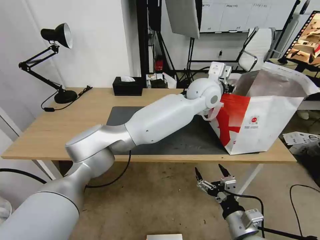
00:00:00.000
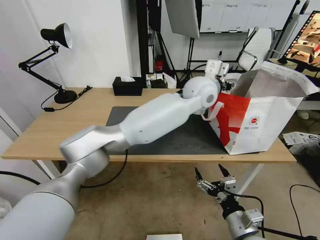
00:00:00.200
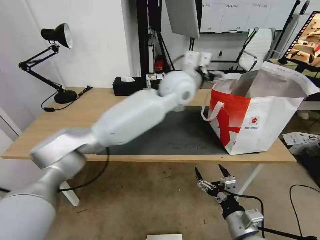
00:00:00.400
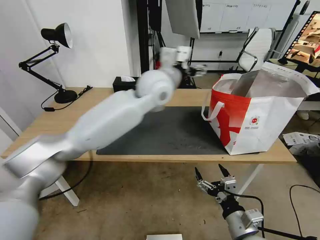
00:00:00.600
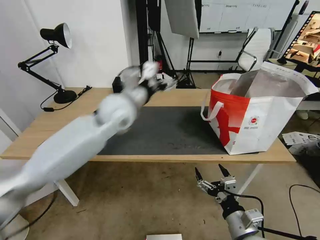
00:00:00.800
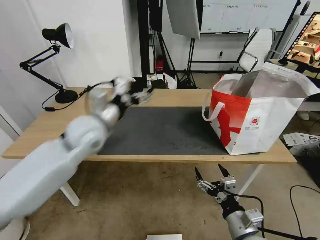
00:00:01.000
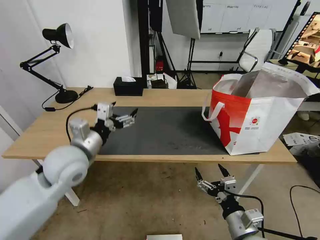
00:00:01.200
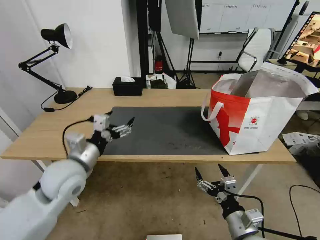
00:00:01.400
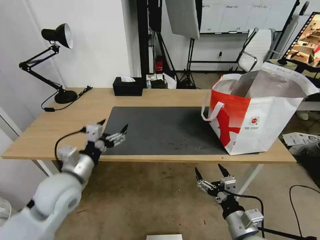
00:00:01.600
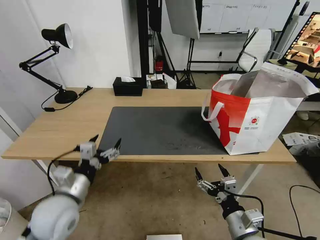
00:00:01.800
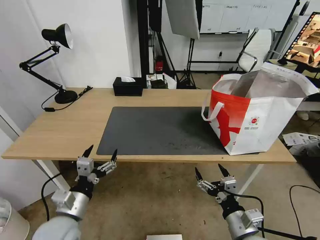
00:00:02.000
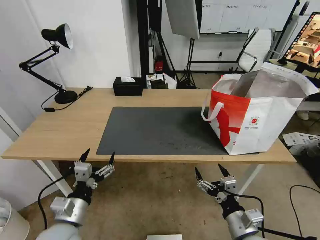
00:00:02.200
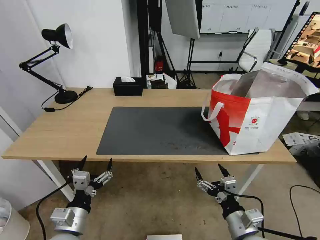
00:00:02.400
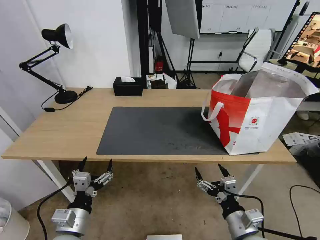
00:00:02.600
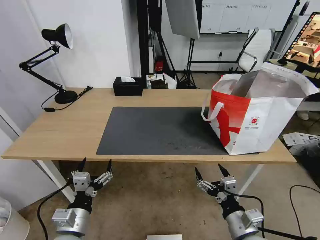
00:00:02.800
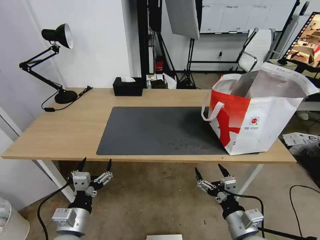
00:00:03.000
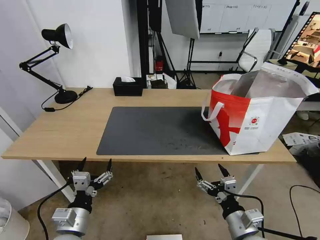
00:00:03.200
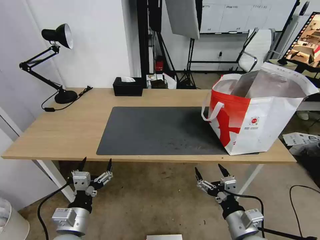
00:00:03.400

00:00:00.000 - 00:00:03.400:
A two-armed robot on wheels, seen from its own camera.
Task of the whole recording: Pick up the trash from the table and place it into the takeout bag.
00:00:00.000 - 00:00:01.600: The left gripper goes roughly 50 cm to the left and backward, and opens its fingers.
00:00:01.600 - 00:00:03.400: The left gripper heads backward and downward, covering approximately 15 cm.

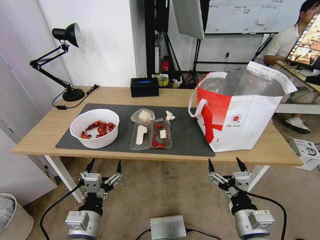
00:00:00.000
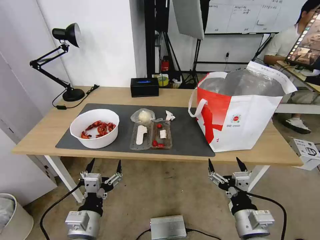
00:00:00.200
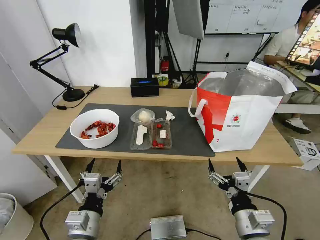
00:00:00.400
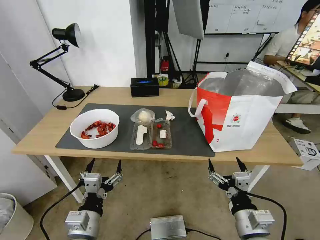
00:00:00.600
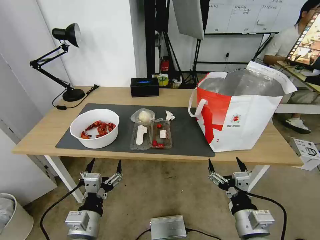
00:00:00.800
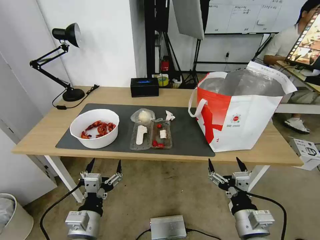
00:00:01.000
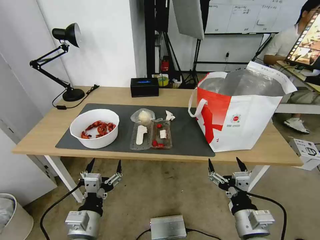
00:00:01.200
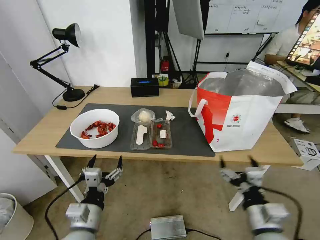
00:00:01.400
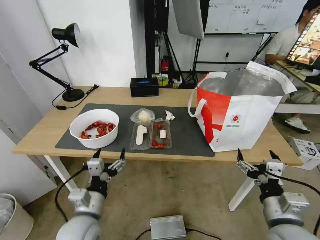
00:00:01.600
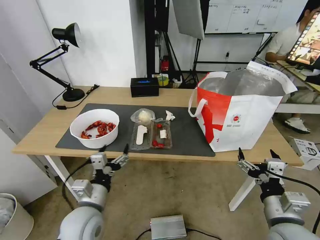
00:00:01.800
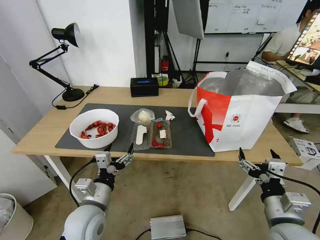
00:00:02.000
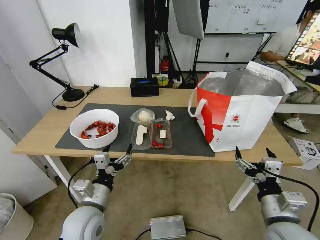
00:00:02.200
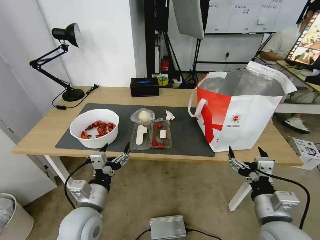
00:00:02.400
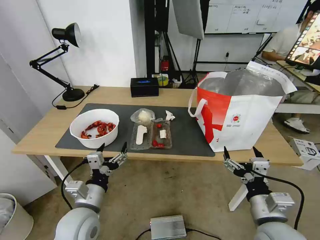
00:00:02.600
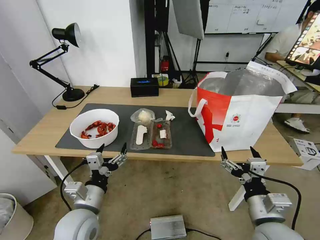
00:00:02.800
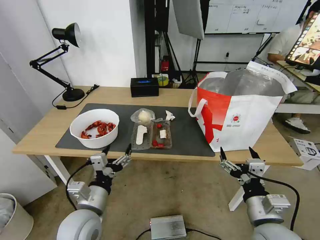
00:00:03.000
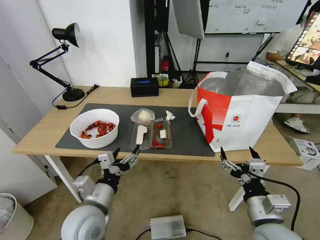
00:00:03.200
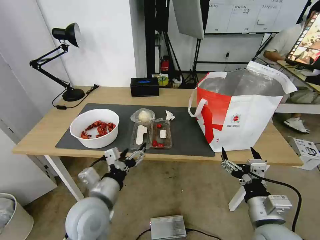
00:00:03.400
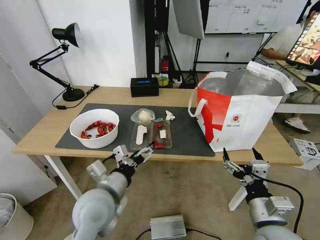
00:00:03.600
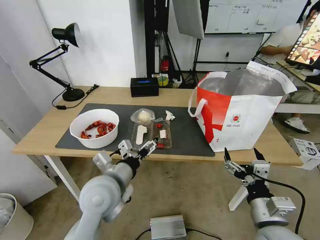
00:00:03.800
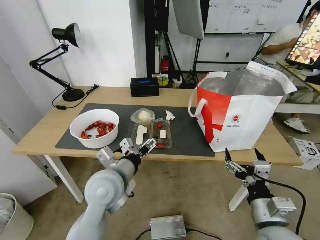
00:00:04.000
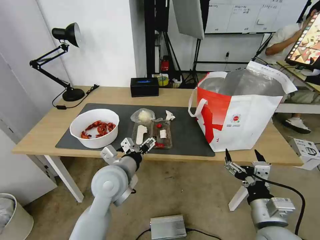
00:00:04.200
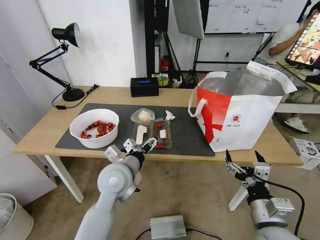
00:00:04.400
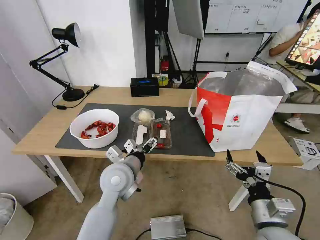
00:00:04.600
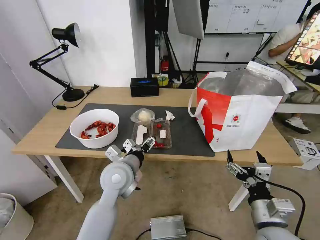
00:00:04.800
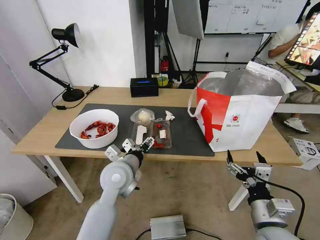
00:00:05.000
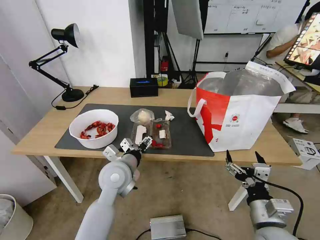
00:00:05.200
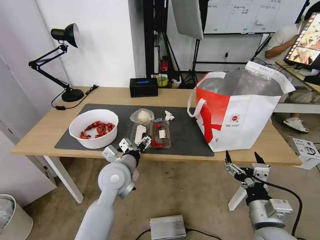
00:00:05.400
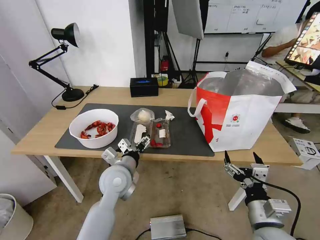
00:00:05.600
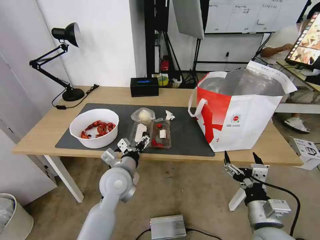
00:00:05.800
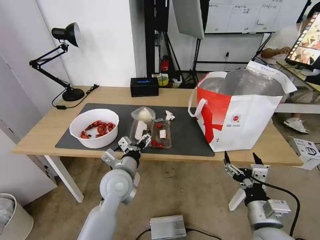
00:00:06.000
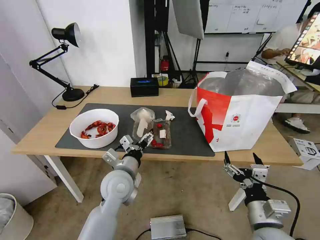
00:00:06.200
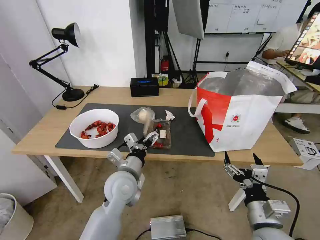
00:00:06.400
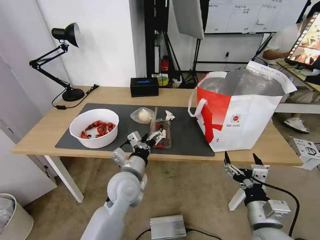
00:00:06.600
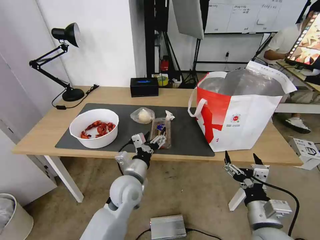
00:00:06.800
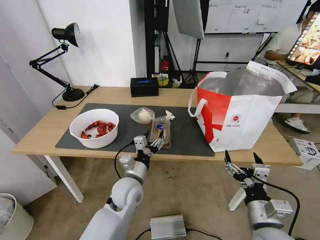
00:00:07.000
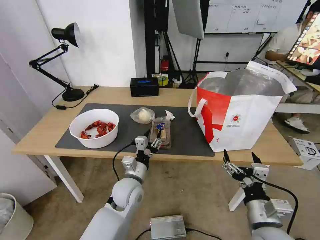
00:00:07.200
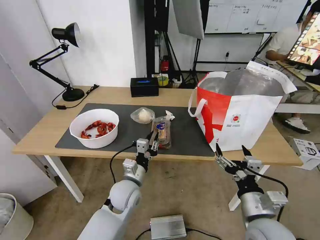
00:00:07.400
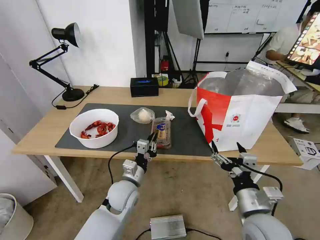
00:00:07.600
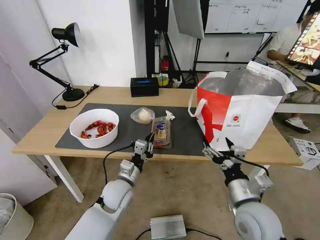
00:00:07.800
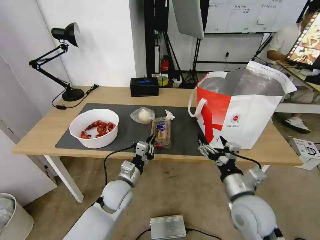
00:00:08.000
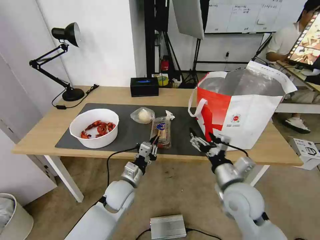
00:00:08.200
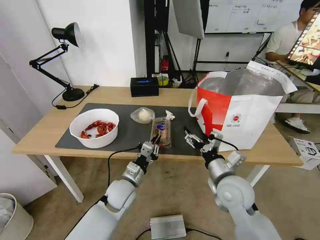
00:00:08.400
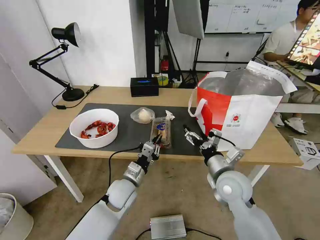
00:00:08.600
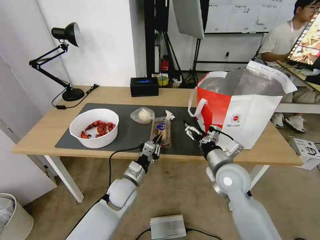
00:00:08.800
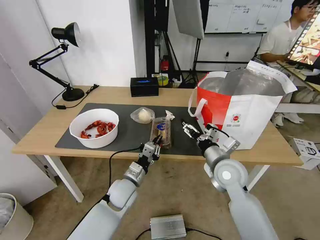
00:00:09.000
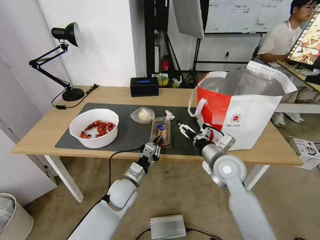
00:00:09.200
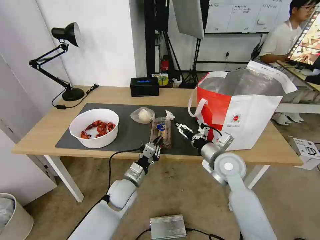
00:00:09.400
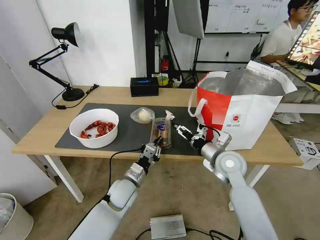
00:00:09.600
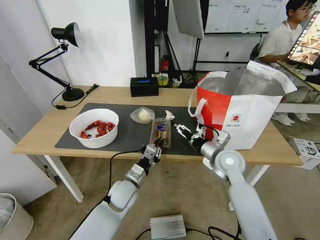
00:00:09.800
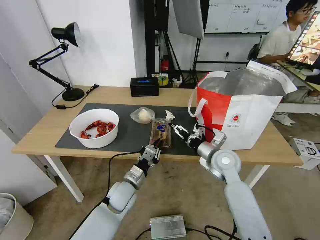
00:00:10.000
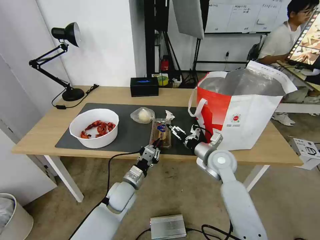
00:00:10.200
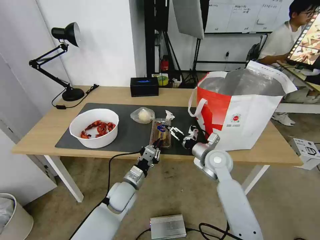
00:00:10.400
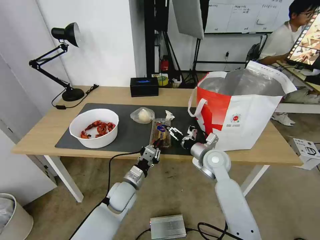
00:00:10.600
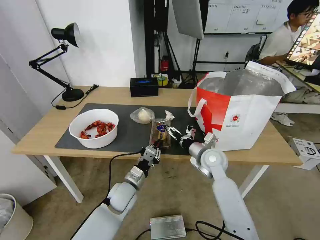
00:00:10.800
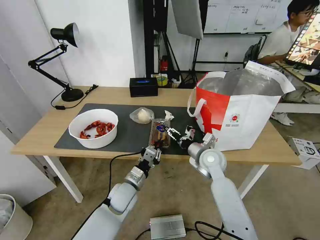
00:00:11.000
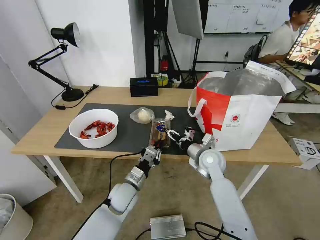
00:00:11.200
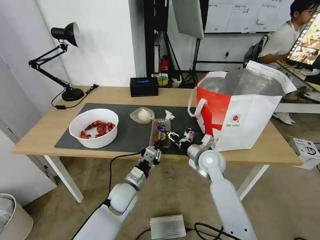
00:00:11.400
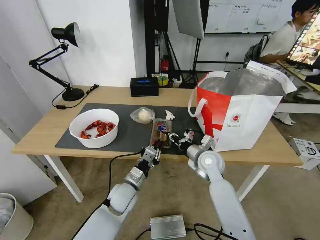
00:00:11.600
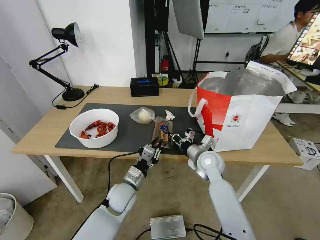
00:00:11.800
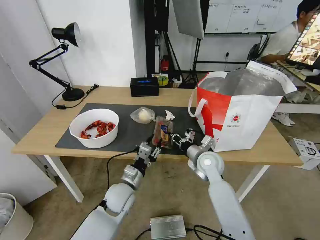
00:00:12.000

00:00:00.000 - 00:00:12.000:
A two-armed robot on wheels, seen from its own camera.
Task of the whole recording: Pick up the trash from the table and place it into the takeout bag.
00:00:01.600 - 00:00:03.000: The grippers make only small movements.
00:00:03.000 - 00:00:04.400: The left gripper shifts approximately 15 cm forward and to the right.
00:00:04.400 - 00:00:06.000: There are only small adjustments of the grippers.
00:00:06.000 - 00:00:07.600: The left gripper travels downward by about 5 cm, and closes its fingers.
00:00:07.600 - 00:00:09.000: The right gripper goes about 15 cm forward.
00:00:09.000 - 00:00:10.400: The right gripper is displaced forward by some 5 cm.
00:00:10.400 - 00:00:12.000: The right gripper closes up; the left gripper opens up.

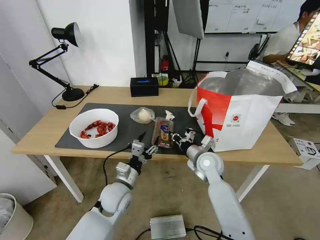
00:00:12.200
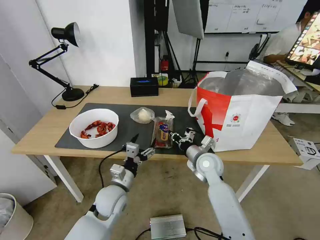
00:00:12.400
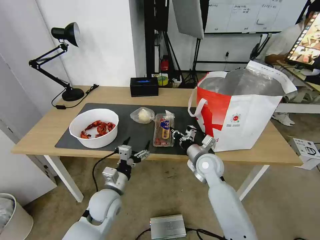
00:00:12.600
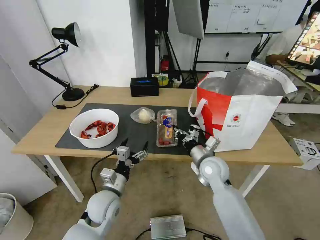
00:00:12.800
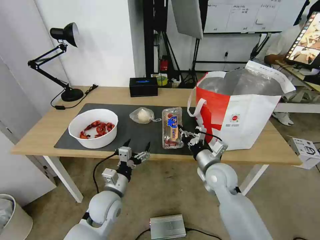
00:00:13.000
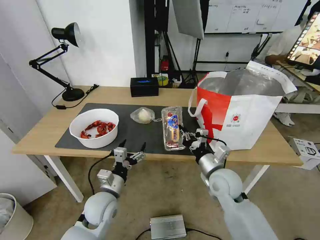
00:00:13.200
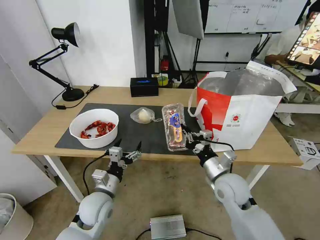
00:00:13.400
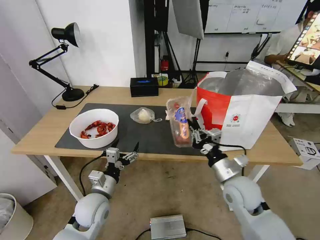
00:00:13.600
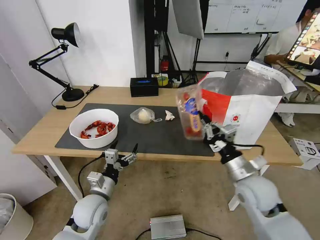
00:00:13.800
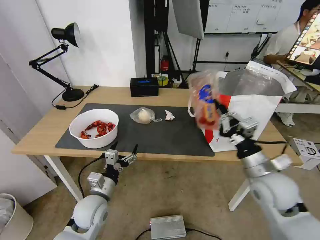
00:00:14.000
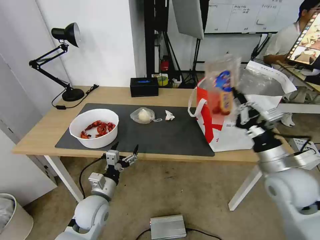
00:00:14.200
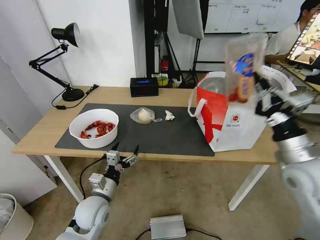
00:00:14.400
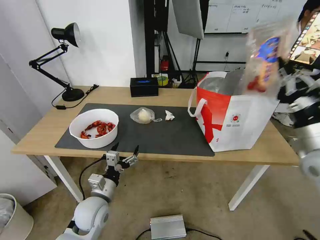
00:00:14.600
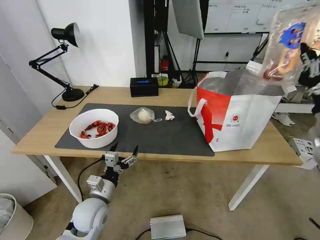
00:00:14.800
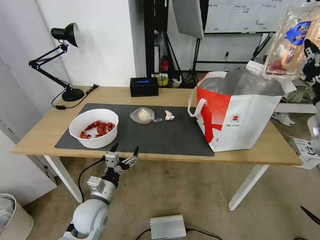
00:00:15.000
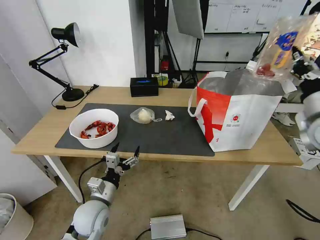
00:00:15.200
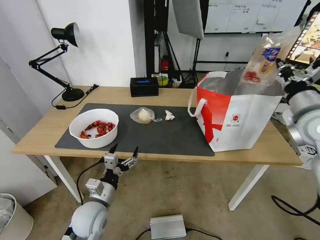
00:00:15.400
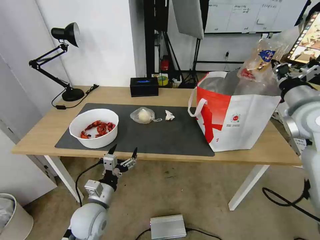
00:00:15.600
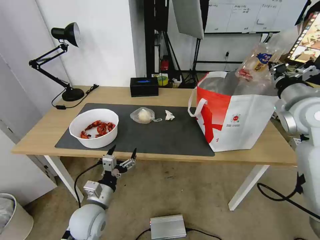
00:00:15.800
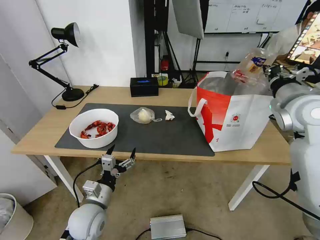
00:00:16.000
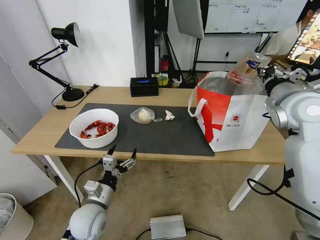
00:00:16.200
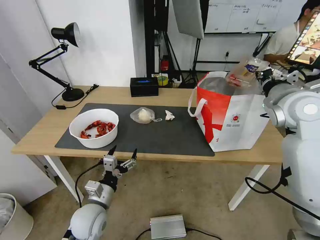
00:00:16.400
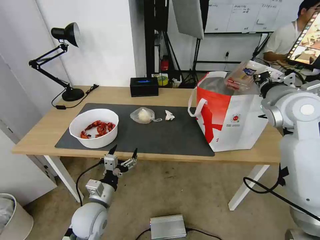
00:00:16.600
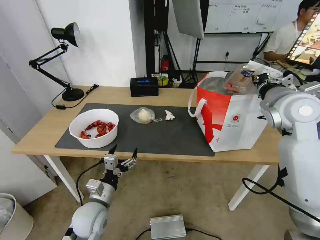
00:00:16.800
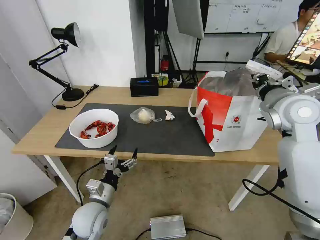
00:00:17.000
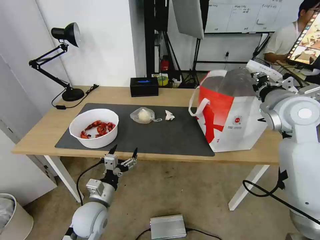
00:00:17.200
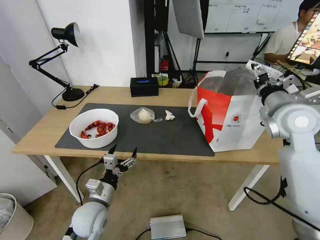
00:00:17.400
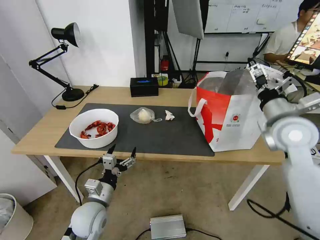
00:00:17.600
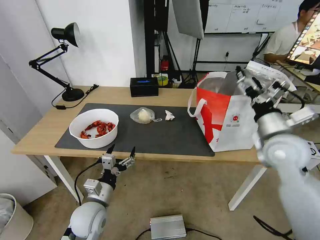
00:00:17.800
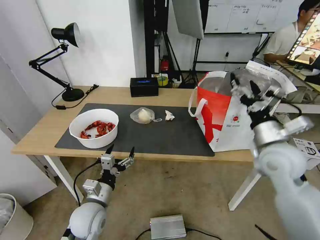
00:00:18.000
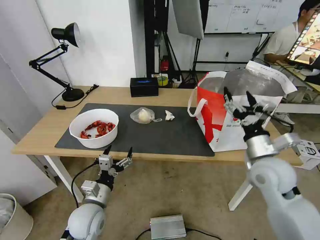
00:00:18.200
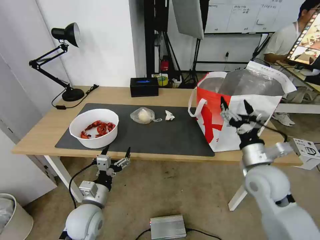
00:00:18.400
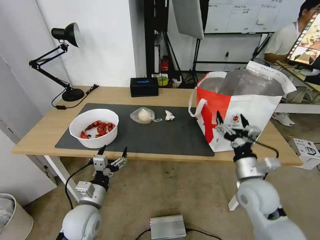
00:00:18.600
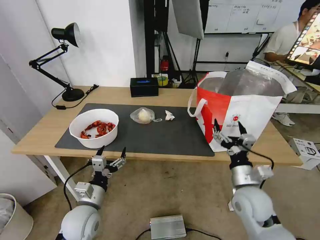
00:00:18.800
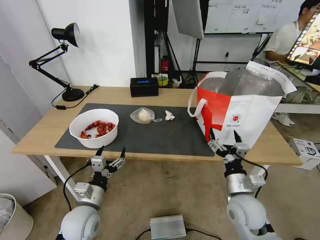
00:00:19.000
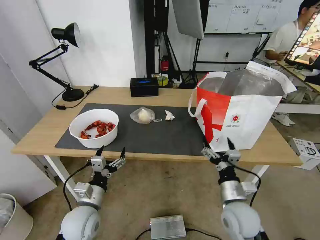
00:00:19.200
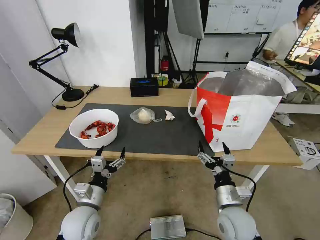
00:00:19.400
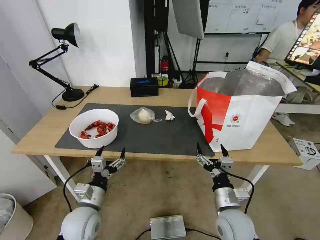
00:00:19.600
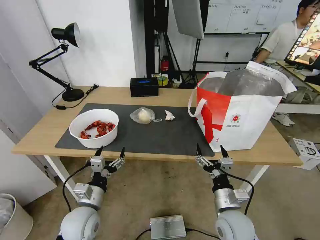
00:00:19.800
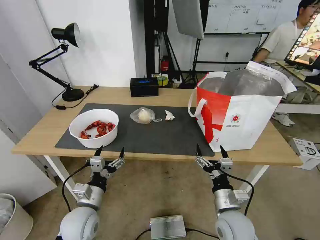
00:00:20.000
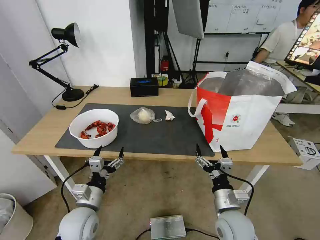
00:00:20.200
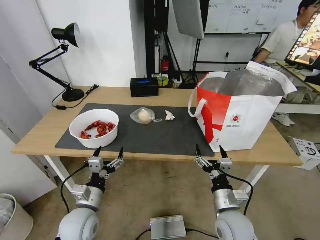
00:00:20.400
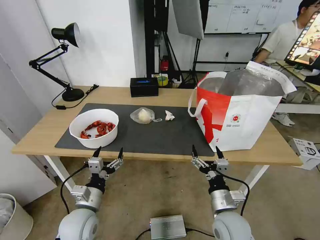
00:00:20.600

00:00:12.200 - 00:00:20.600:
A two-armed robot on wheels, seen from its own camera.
Task of the whole recording: Pick up the trash from the table and place it into the takeout bag.
00:00:12.200 - 00:00:13.600: The right gripper is displaced backward and to the right by some 10 cm. Meanwhile the left gripper moves to the left, some 5 cm.
00:00:13.600 - 00:00:15.000: The right gripper heads upward and to the right, covering roughly 25 cm.
00:00:15.000 - 00:00:16.400: The right gripper is displaced forward and to the left by some 10 cm.
00:00:16.400 - 00:00:17.800: The right gripper goes some 10 cm downward and backward, and opens up.
00:00:17.800 - 00:00:19.200: The right gripper is displaced downward, backward and to the left by roughly 25 cm.
00:00:19.200 - 00:00:20.600: The grippers make only small movements.
